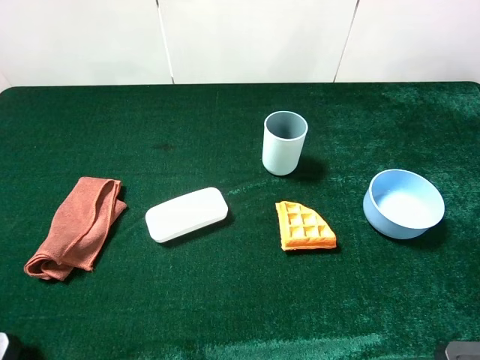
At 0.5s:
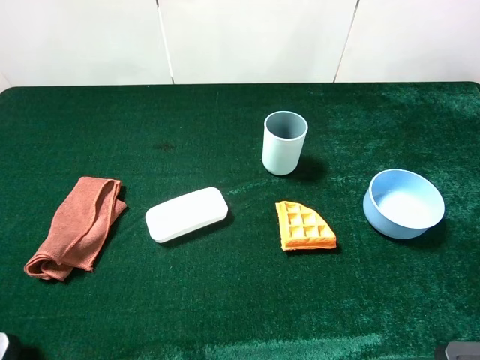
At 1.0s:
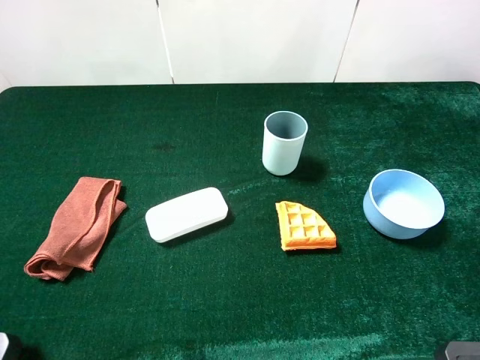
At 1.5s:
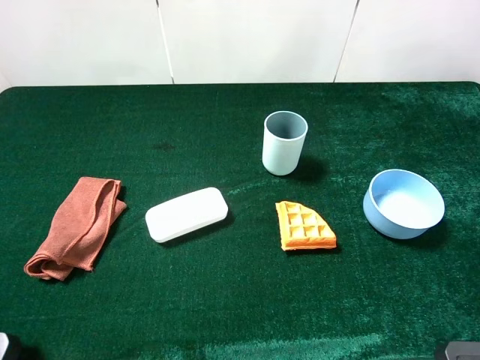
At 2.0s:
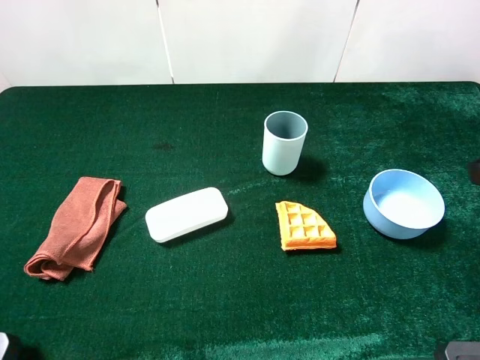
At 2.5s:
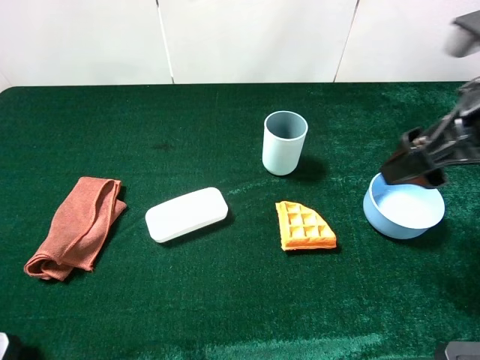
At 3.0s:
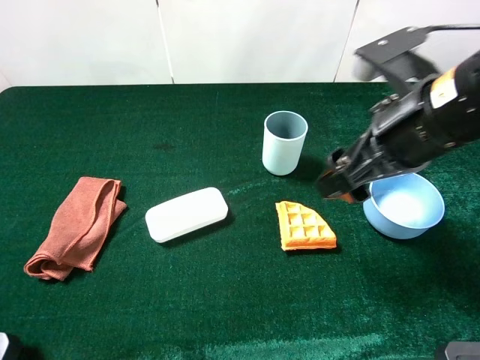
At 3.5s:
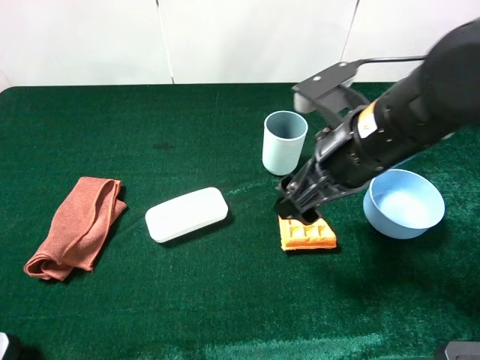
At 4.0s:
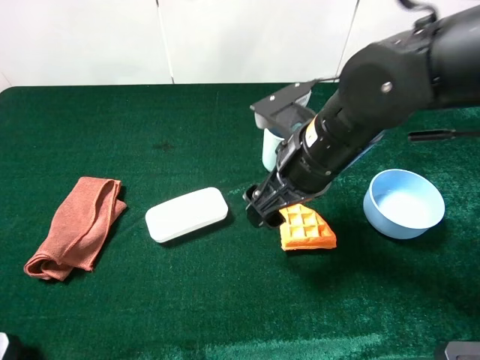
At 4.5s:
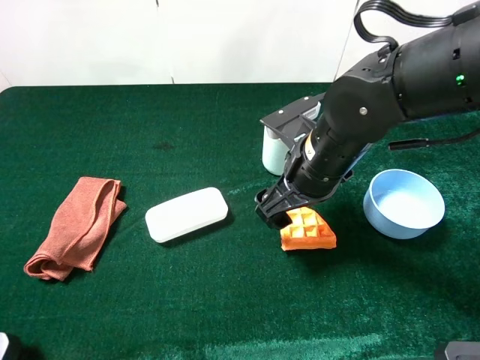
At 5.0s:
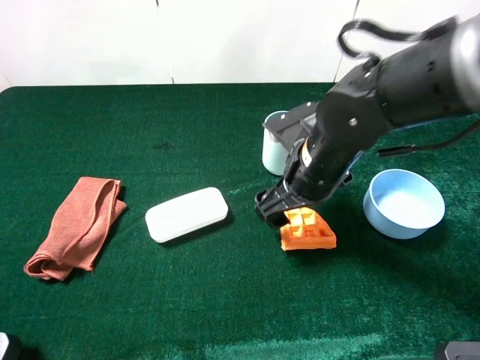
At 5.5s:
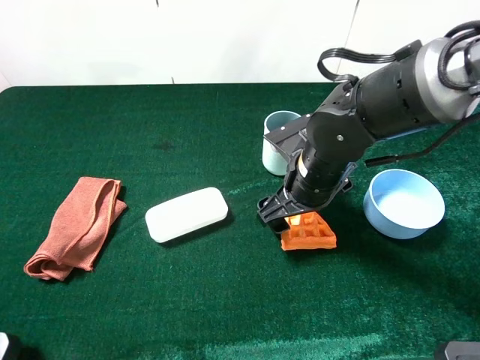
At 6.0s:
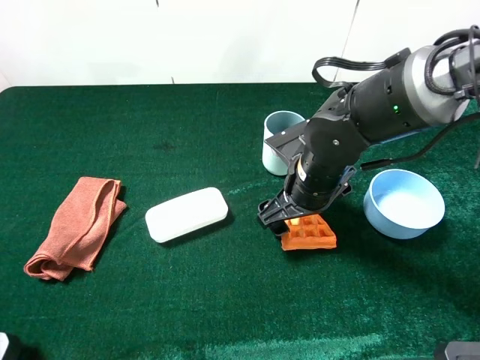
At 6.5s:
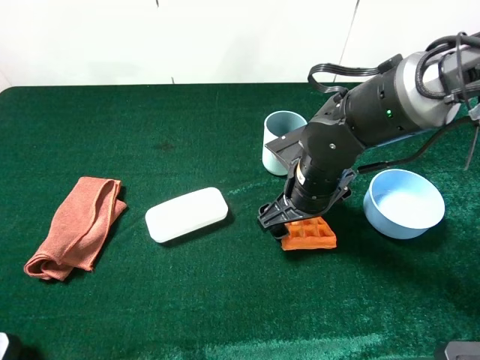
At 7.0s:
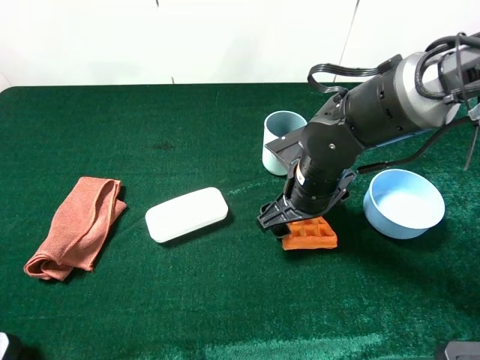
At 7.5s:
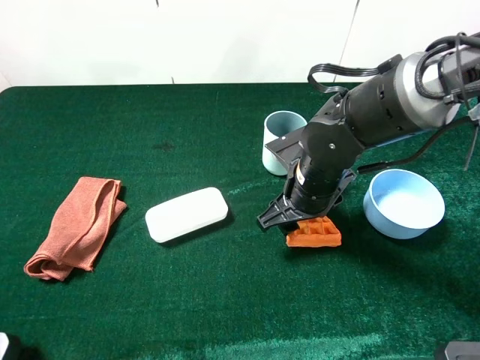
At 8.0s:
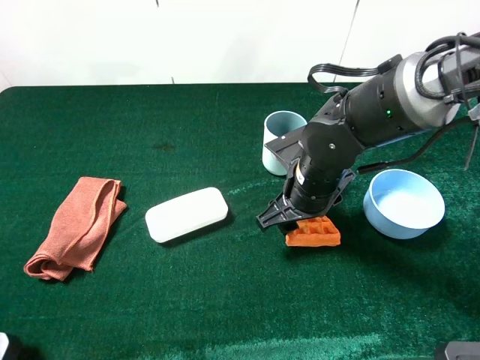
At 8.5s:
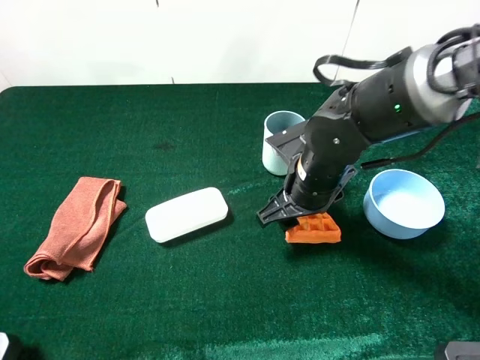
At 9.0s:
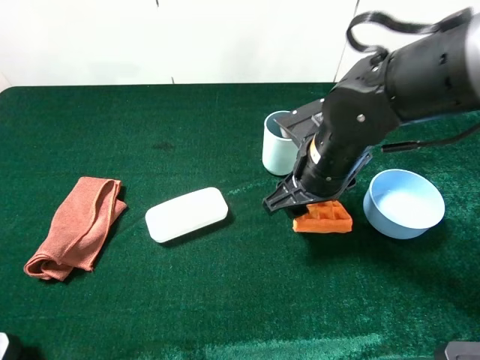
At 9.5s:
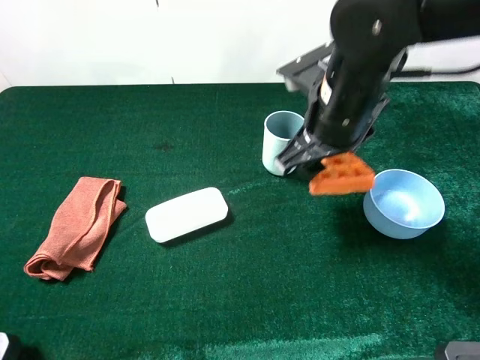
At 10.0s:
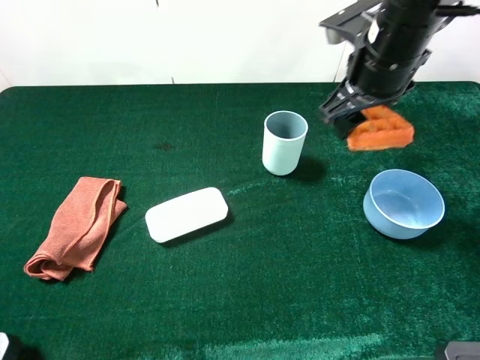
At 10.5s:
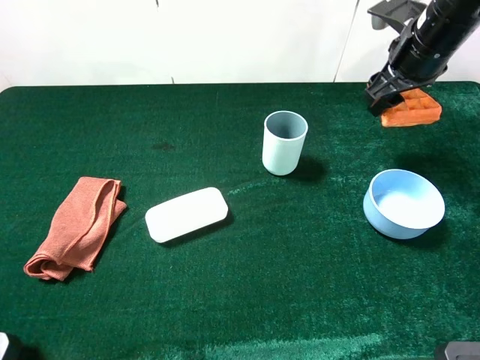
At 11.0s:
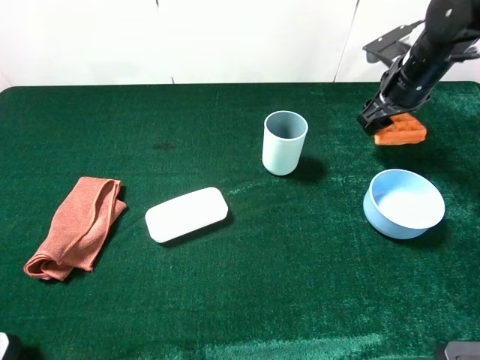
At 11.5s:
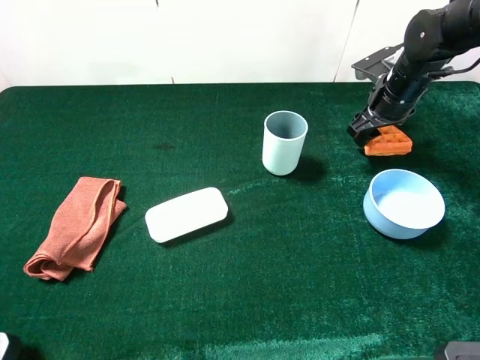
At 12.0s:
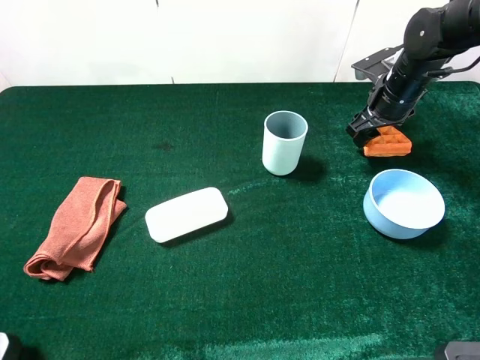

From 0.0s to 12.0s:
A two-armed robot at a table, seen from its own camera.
Task of the whole recording: the gripper move the object.
Step, from 0.0s to 8.0s: Grasp the wallfe with the right gripper.
From 2.0s to 4.0s: The right gripper goes roughly 25 cm to the left and downward.
From 4.0s to 6.0s: The right gripper is displaced downward by roughly 5 cm.
From 6.0s to 8.0s: The right gripper closes its fingers.
From 8.0s to 10.0s: The right gripper moves upward, forward and to the right, approximately 15 cm.
From 10.0s to 12.0s: The right gripper moves downward, forward and to the right, roughly 15 cm.

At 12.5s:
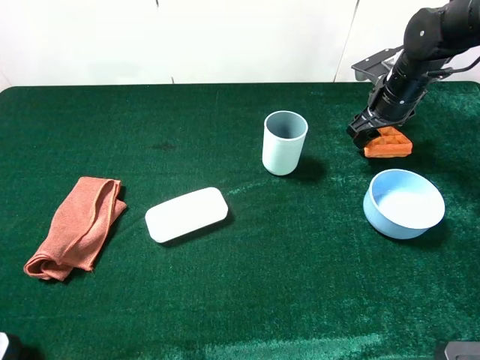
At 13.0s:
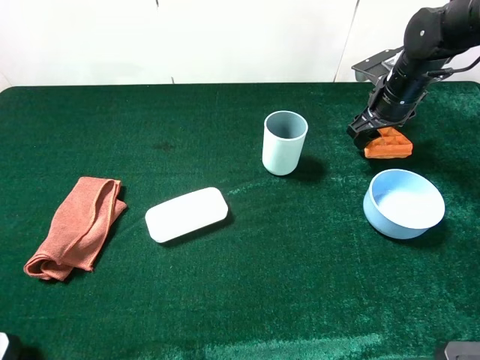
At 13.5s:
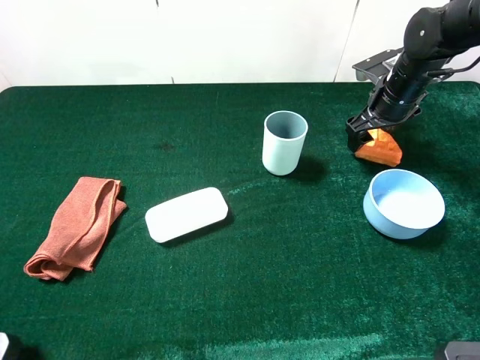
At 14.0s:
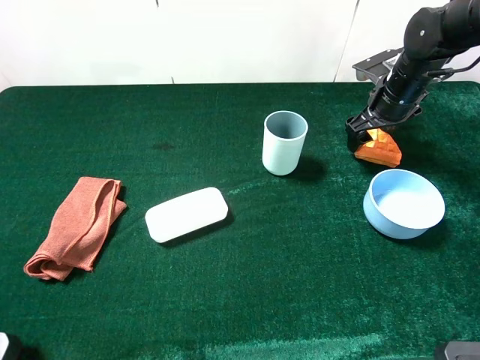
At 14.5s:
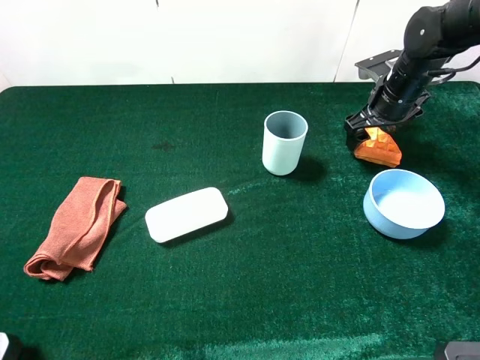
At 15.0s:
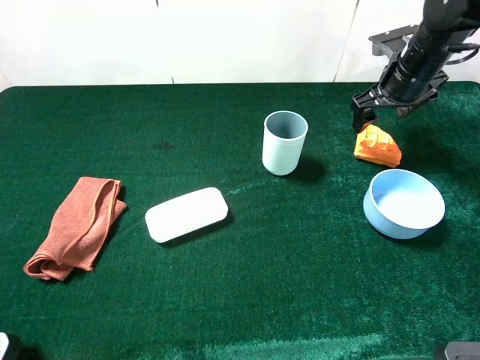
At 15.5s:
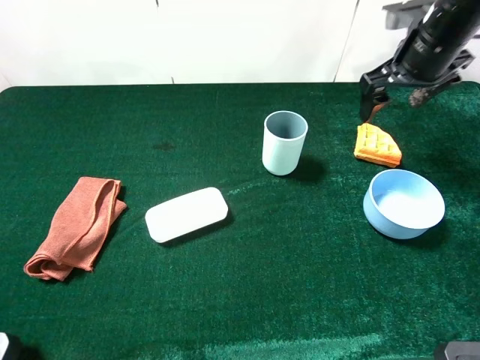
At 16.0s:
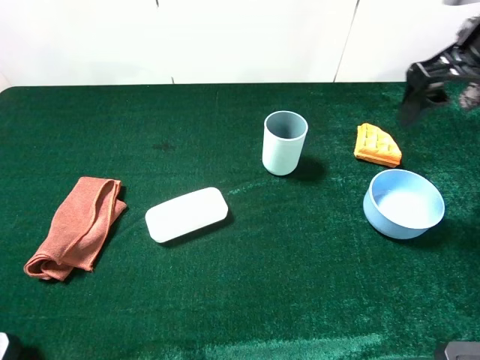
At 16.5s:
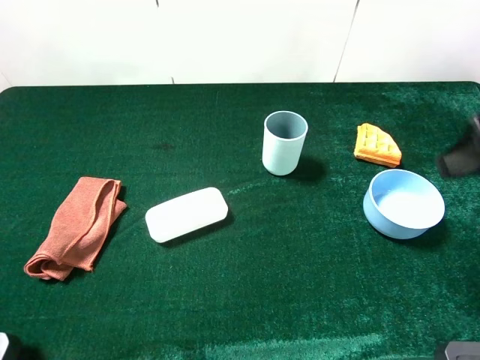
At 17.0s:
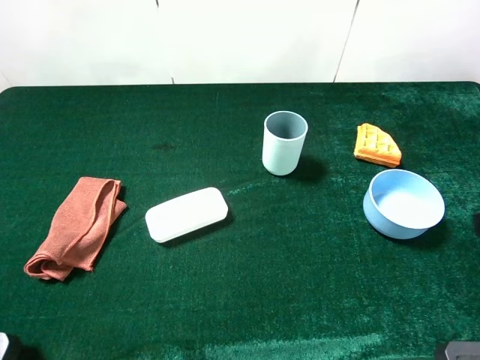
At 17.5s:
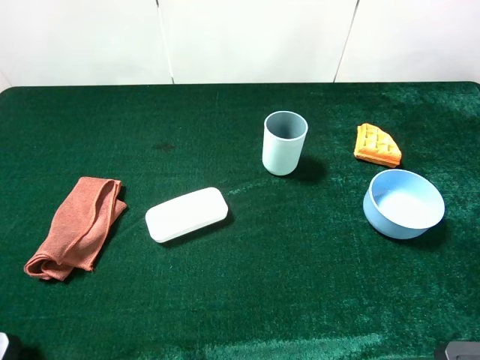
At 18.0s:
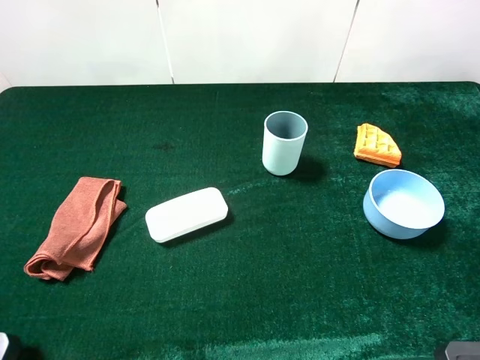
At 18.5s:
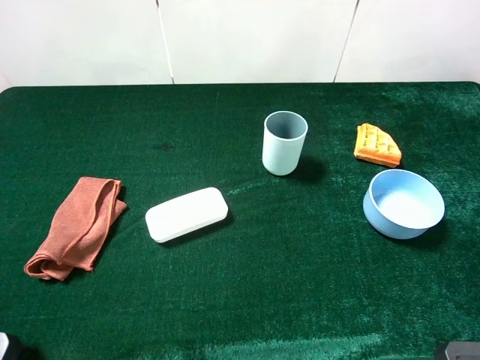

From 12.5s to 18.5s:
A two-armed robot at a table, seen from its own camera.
Task of the whole recording: the gripper move the object.
Step, from 12.5s to 15.0s: Place the wallfe on the table with the right gripper.
From 12.5s to 14.5s: The right gripper opens.
From 14.5s to 16.5s: The right gripper moves backward and upward, about 30 cm.
